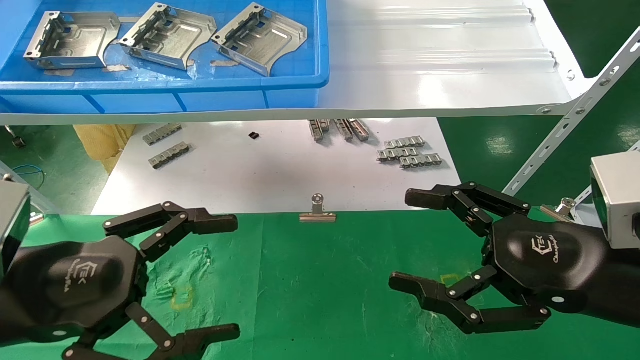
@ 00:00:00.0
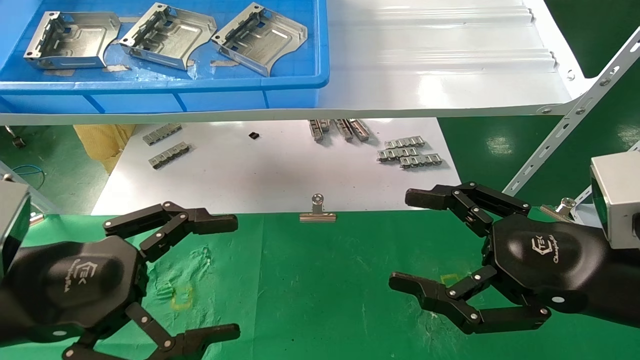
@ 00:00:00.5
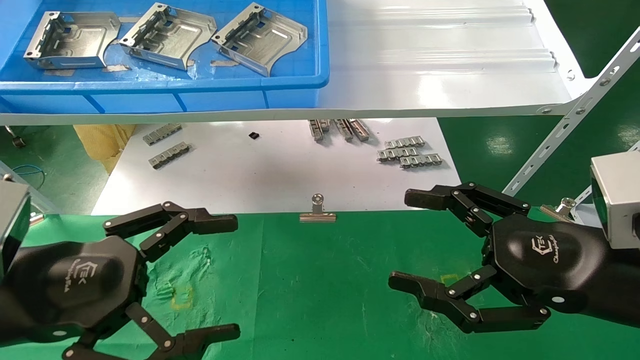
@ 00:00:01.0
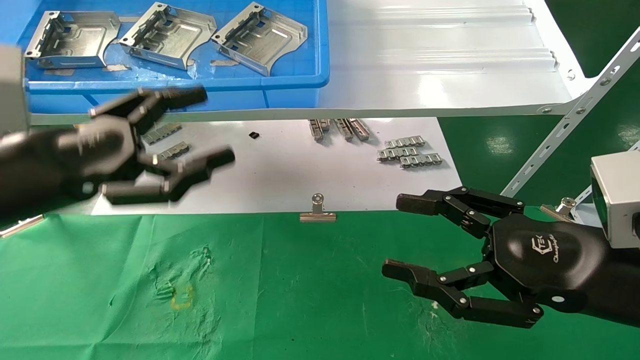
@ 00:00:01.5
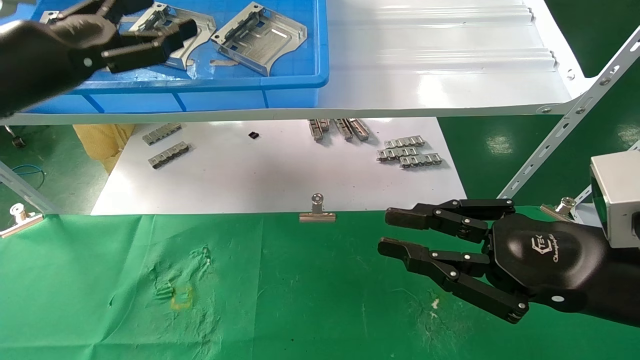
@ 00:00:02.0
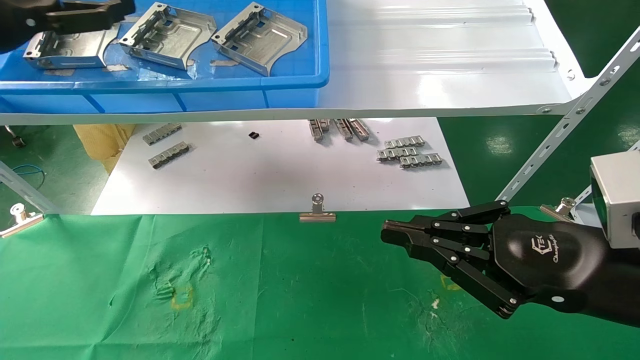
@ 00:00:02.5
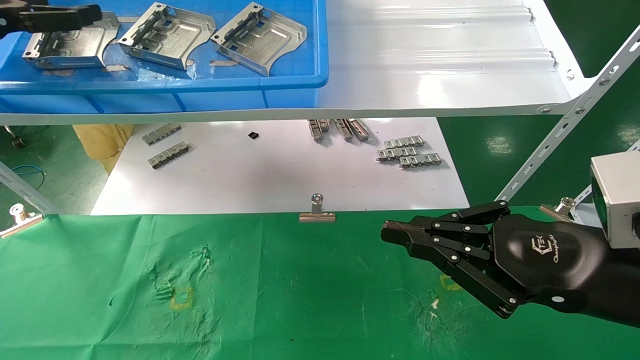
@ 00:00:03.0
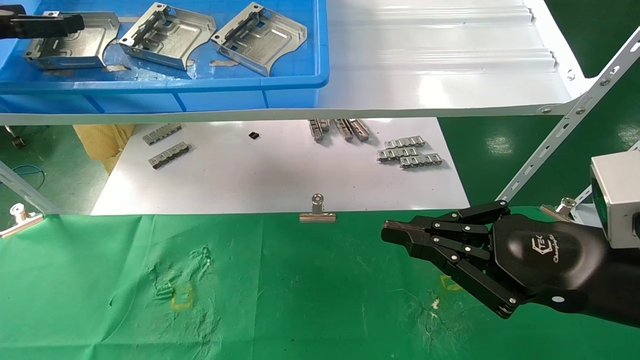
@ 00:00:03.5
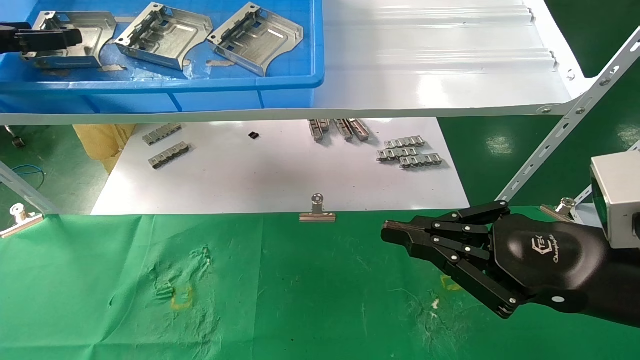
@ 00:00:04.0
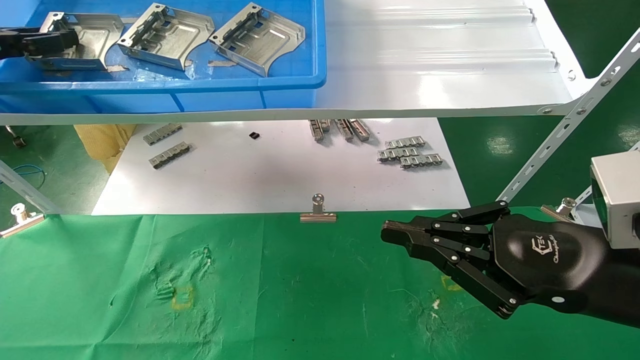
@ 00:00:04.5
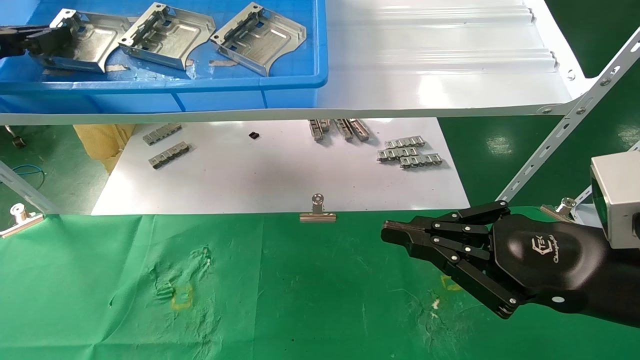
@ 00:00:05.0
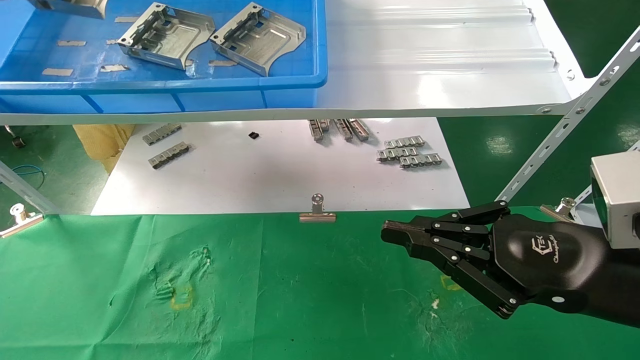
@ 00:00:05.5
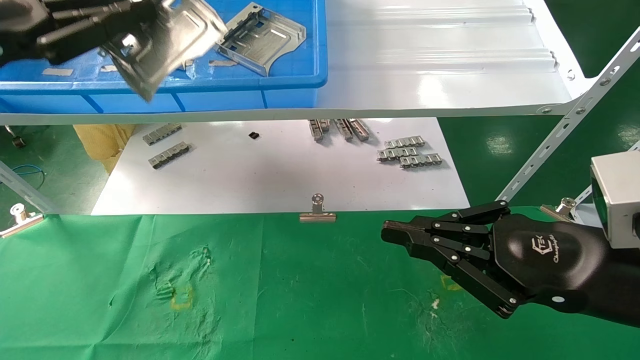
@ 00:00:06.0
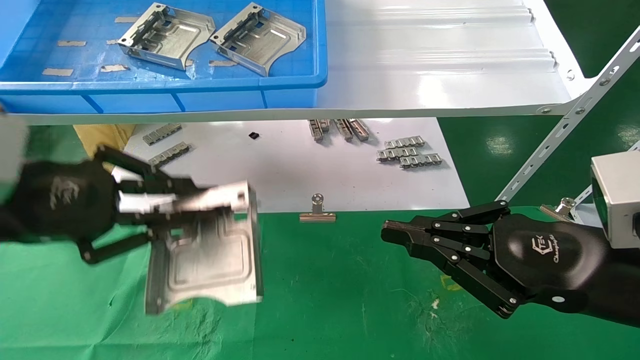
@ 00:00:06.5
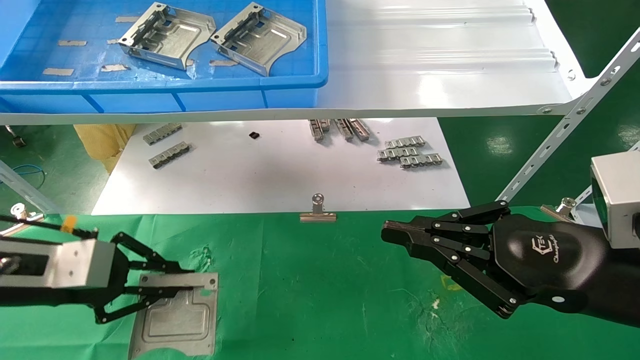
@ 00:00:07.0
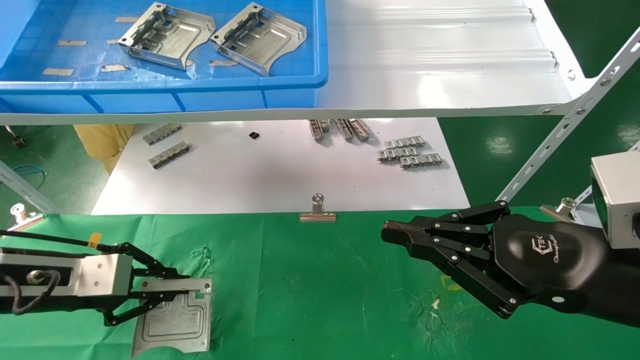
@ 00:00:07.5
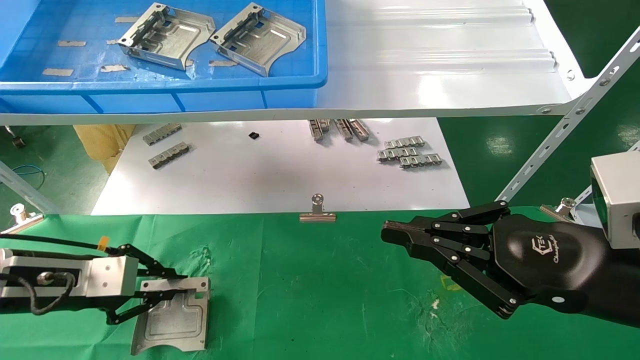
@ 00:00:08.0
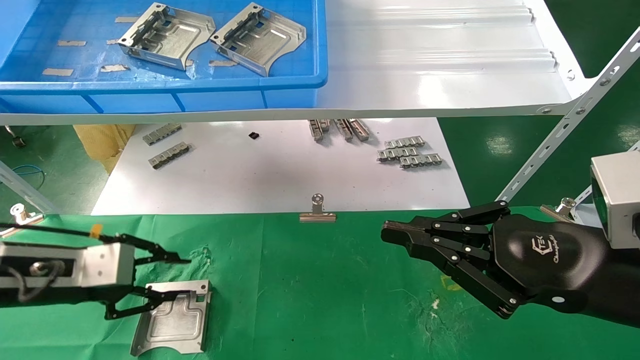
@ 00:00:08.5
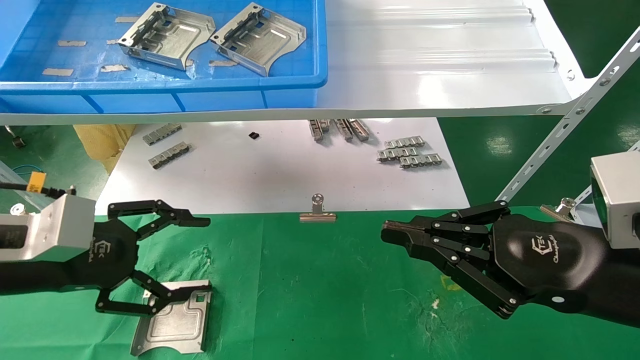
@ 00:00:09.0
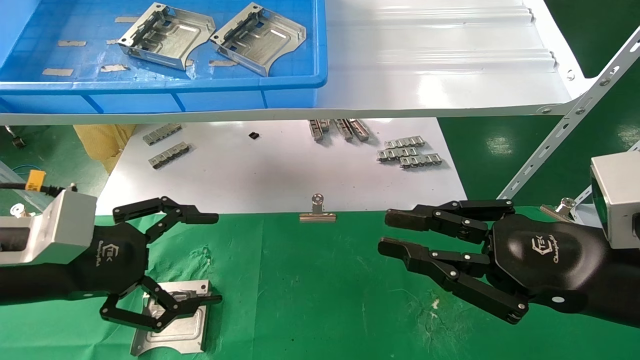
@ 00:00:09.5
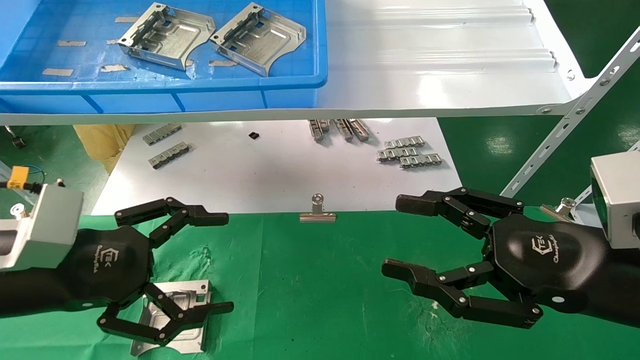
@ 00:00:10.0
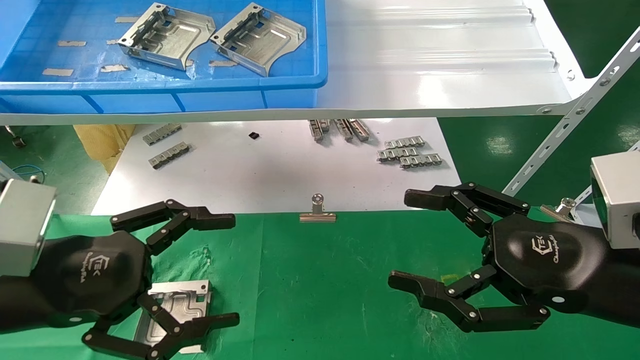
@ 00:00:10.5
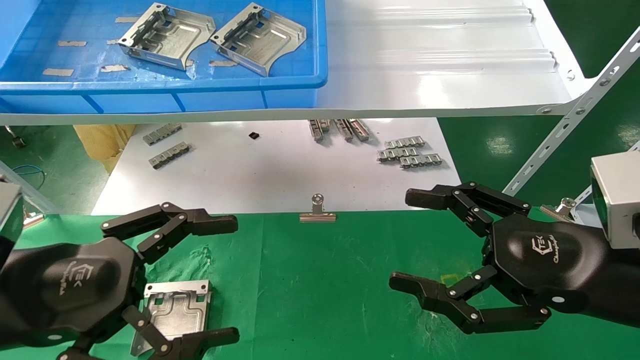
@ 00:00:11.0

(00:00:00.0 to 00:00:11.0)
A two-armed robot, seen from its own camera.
Task of the whole recording: use the mechanical arm to pick up the parts and place them on the table.
Step, 00:00:01.5 - 00:00:04.5: Pick up the hard drive bracket from the feeding area.
Step, 00:00:05.0 - 00:00:08.0: Place the hard drive bracket into the box.
00:00:00.0 - 00:00:02.0: The right gripper closes up. The left gripper moves upward and forward, approximately 20 cm.
00:00:02.0 - 00:00:03.5: The right gripper closes its fingers; the left gripper shifts approximately 15 cm to the left and upward.
00:00:03.5 - 00:00:05.5: The left gripper is displaced backward by roughly 5 cm, and closes.
00:00:05.5 - 00:00:07.5: The left gripper goes roughly 25 cm downward.
00:00:07.5 - 00:00:09.0: The left gripper changes place by about 5 cm, and opens.
00:00:09.0 - 00:00:11.0: The left gripper moves backward, about 5 cm, and opens. The right gripper opens its fingers.

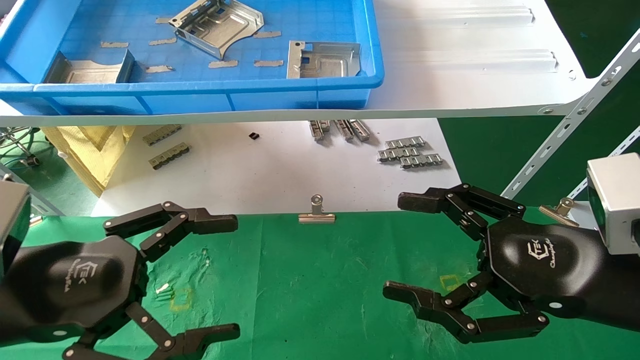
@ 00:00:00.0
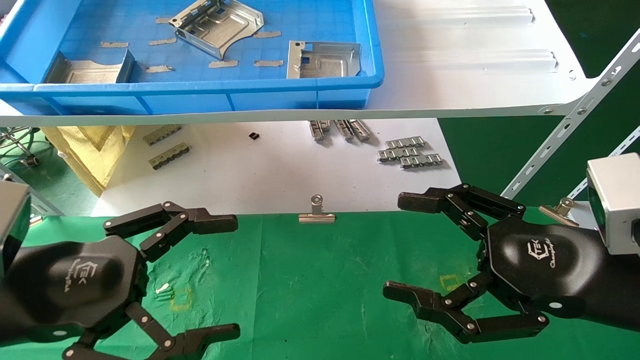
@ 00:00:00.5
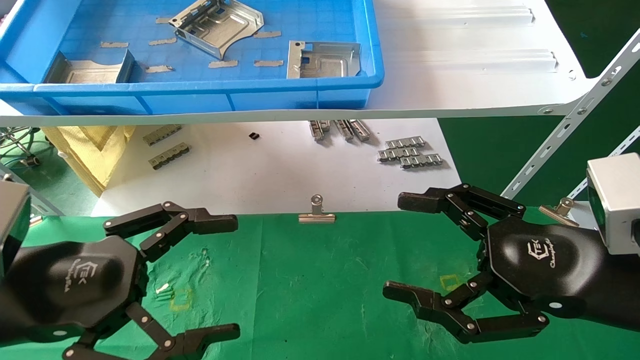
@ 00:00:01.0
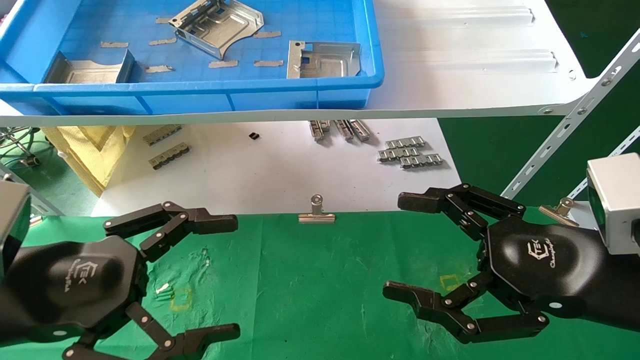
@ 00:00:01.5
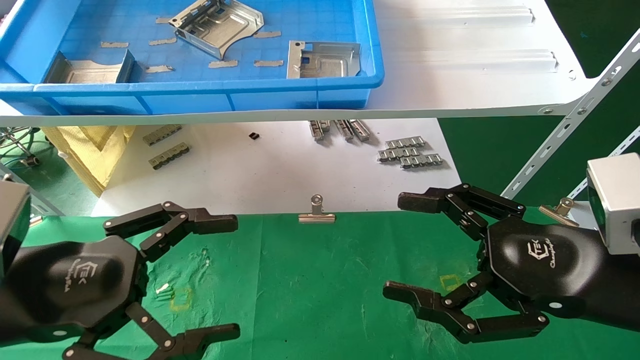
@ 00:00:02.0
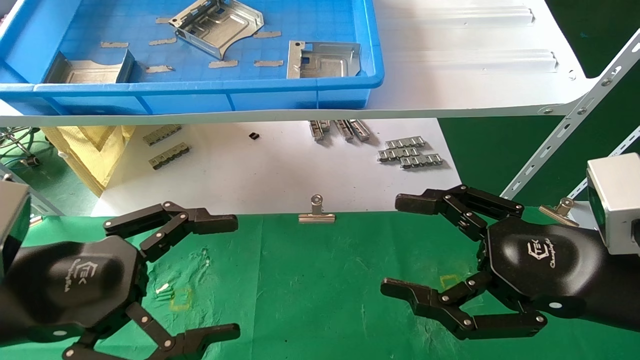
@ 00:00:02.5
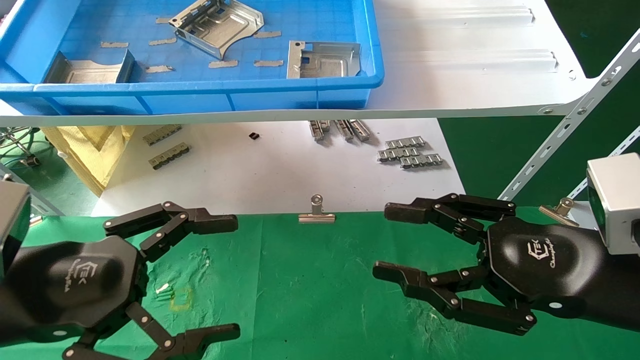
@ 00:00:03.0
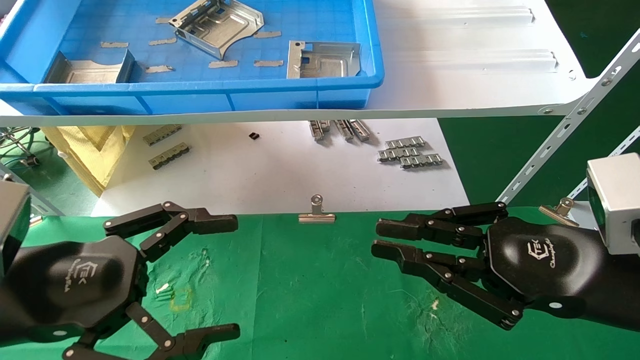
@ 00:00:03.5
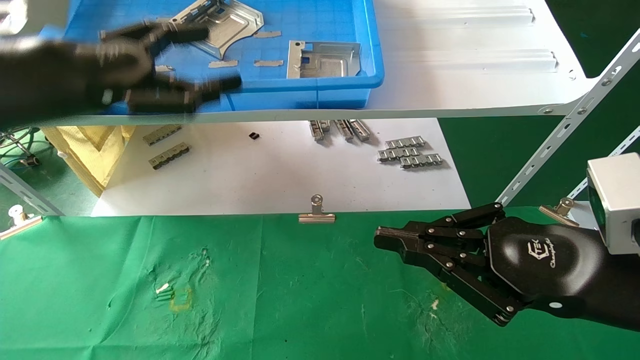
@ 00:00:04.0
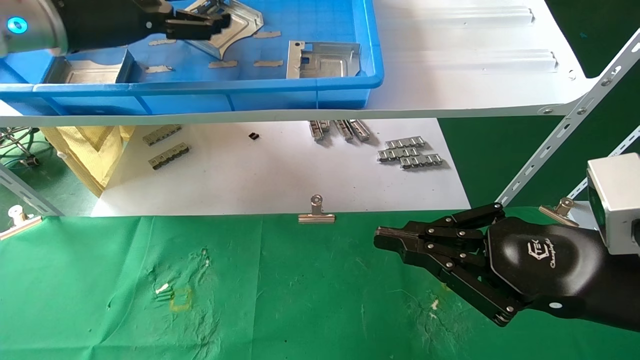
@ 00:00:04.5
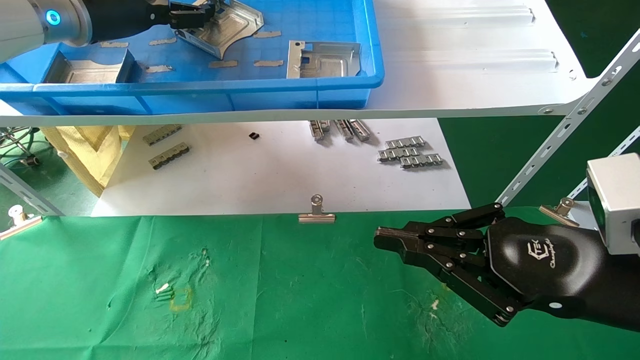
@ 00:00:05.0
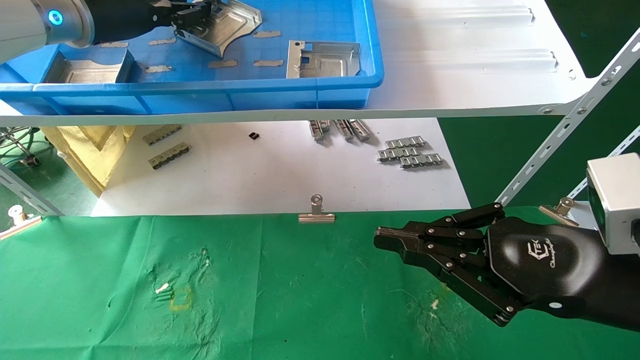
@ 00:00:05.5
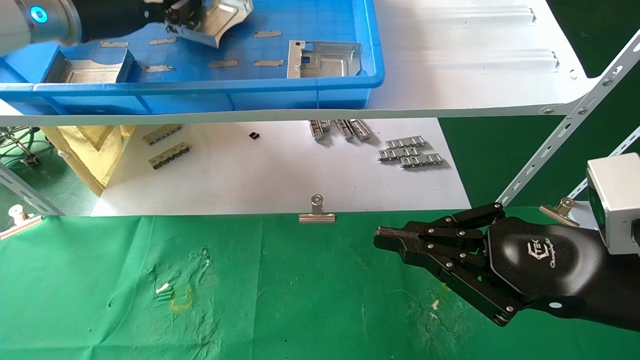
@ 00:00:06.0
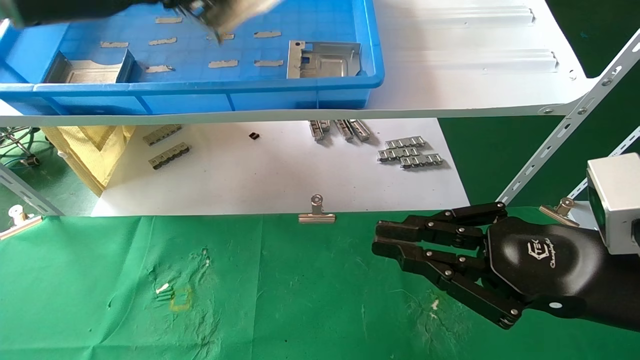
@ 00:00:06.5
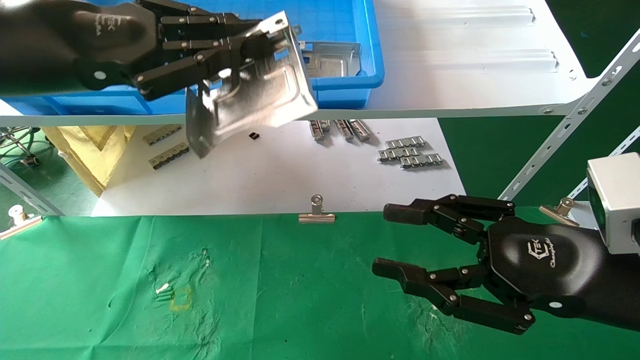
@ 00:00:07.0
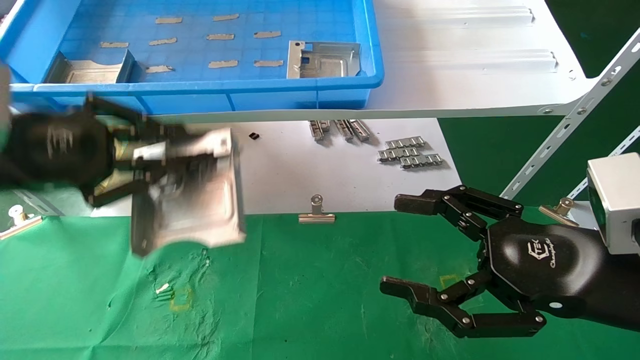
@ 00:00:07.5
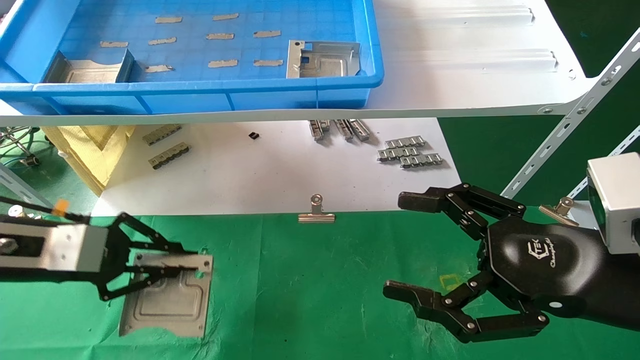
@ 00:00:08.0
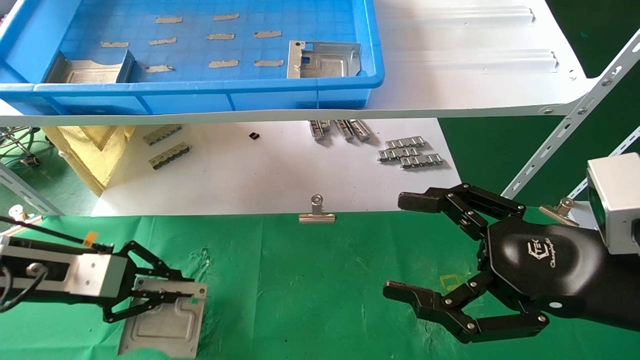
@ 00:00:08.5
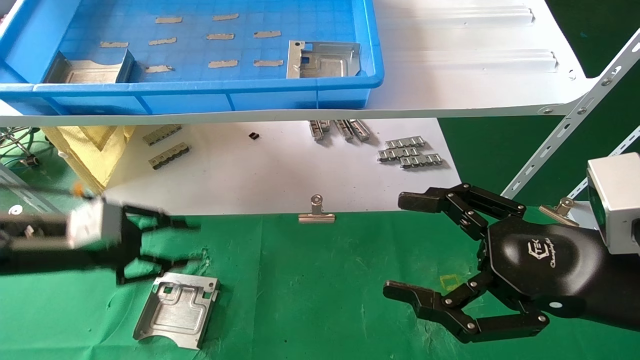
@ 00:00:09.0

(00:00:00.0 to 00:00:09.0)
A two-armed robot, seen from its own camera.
Task of the whole recording: use the mechanical arm to pick up the parts and place them on the table.
Step, 00:00:04.0 - 00:00:06.0: Pick up the hard drive bracket from the feeding area.
Step, 00:00:06.5 - 00:00:08.5: Place the hard drive bracket into the box.
00:00:00.0 - 00:00:02.0: Both grippers stay about where they are.
00:00:02.0 - 00:00:04.5: The left gripper shifts roughly 30 cm upward and forward. Meanwhile the right gripper closes its fingers.
00:00:04.5 - 00:00:07.0: The right gripper opens up. Meanwhile the left gripper moves backward and downward, about 15 cm, and closes up.
00:00:07.0 - 00:00:09.0: The left gripper travels downward by approximately 20 cm. The right gripper opens its fingers.
